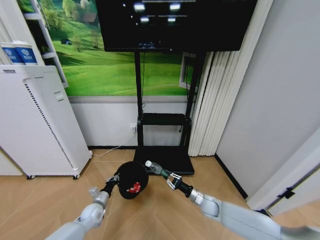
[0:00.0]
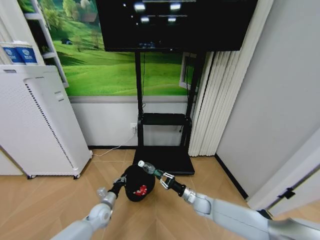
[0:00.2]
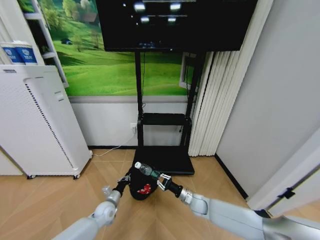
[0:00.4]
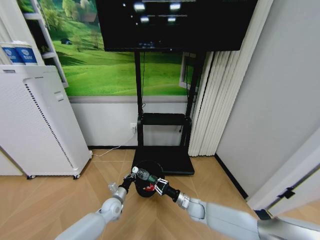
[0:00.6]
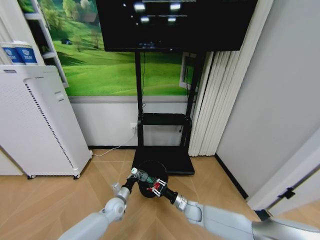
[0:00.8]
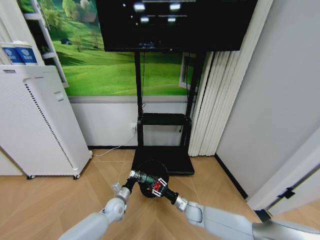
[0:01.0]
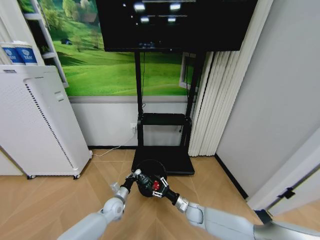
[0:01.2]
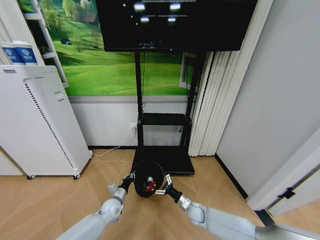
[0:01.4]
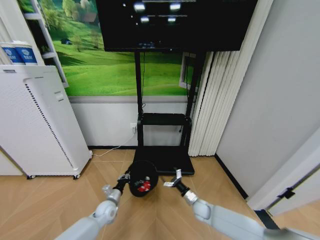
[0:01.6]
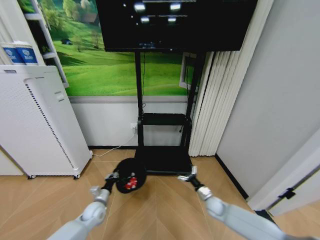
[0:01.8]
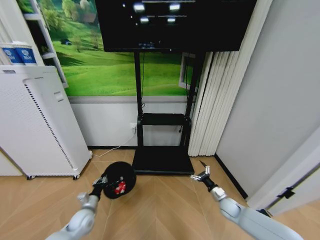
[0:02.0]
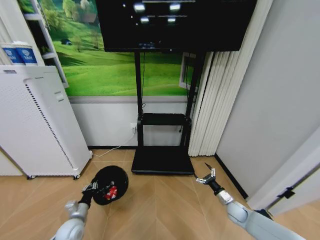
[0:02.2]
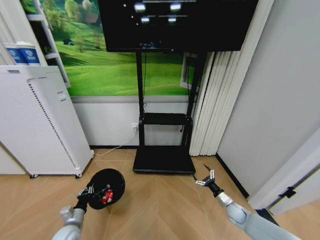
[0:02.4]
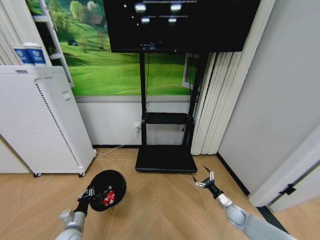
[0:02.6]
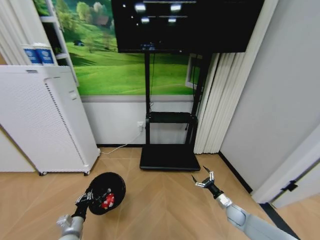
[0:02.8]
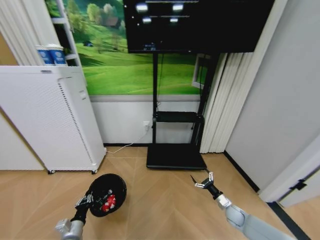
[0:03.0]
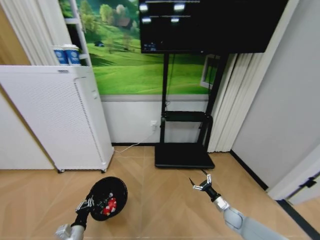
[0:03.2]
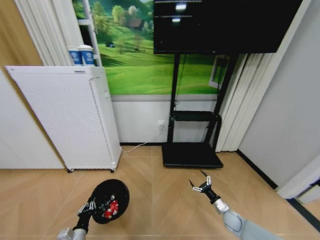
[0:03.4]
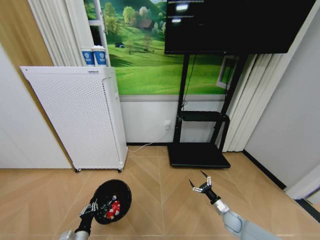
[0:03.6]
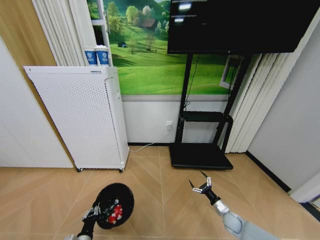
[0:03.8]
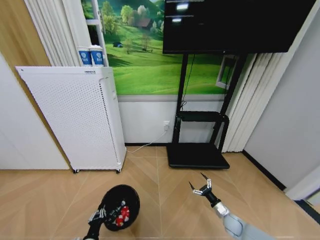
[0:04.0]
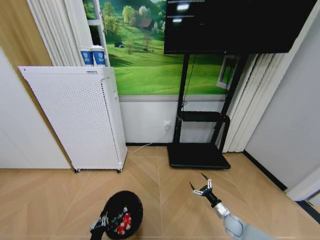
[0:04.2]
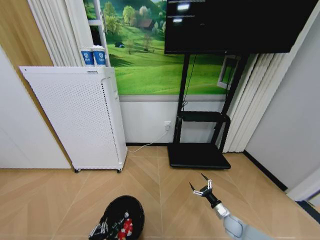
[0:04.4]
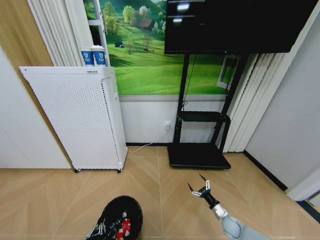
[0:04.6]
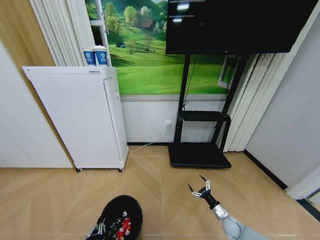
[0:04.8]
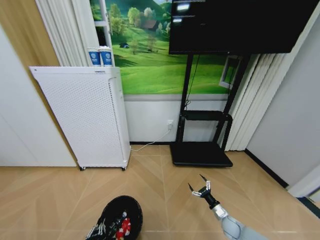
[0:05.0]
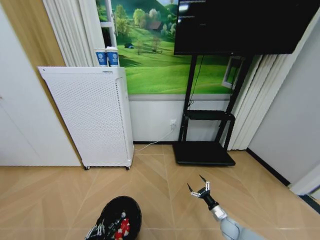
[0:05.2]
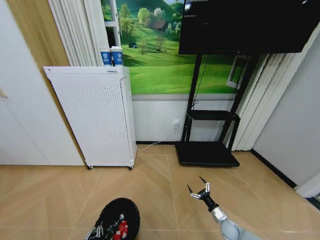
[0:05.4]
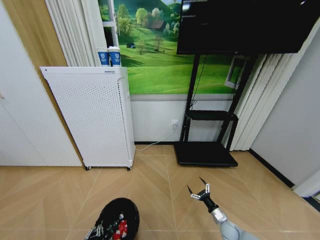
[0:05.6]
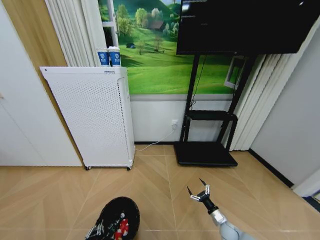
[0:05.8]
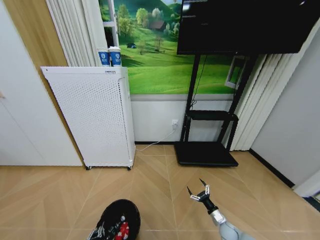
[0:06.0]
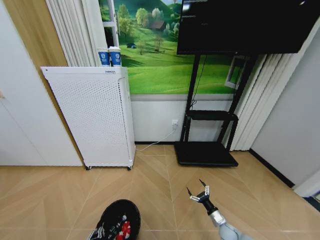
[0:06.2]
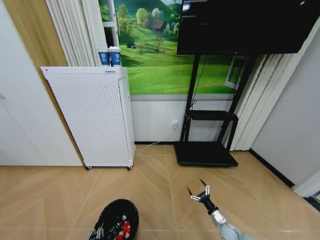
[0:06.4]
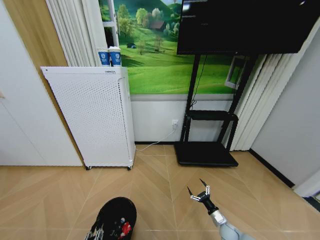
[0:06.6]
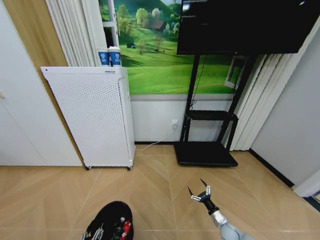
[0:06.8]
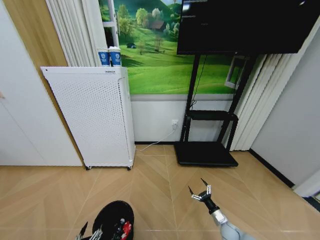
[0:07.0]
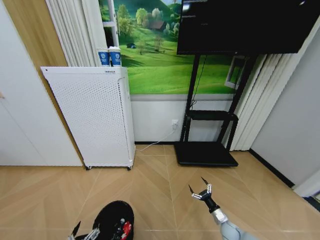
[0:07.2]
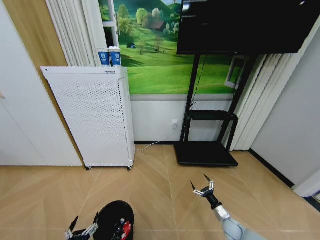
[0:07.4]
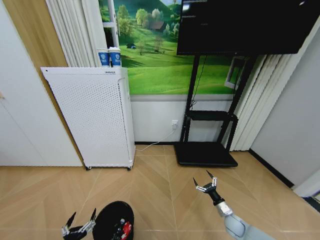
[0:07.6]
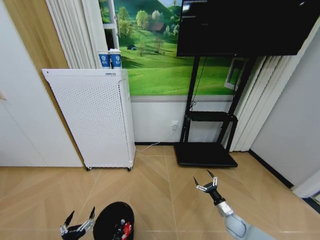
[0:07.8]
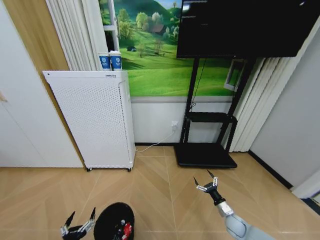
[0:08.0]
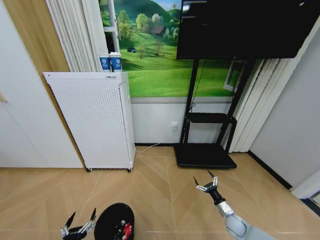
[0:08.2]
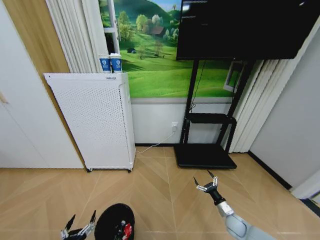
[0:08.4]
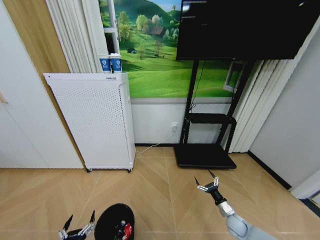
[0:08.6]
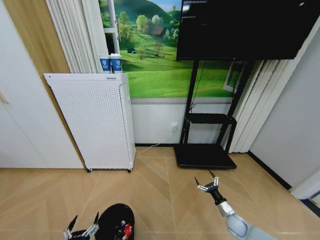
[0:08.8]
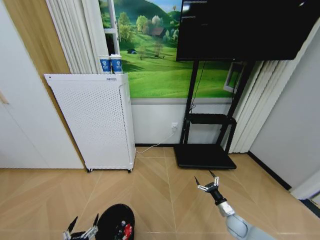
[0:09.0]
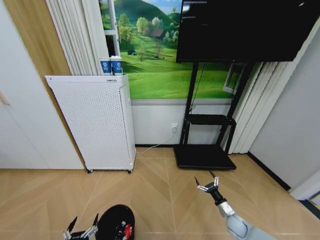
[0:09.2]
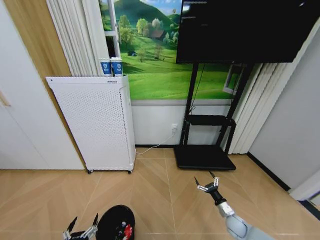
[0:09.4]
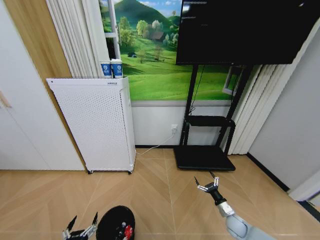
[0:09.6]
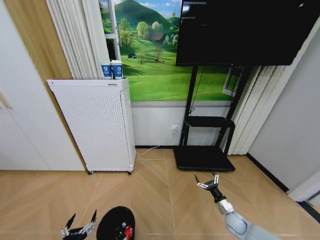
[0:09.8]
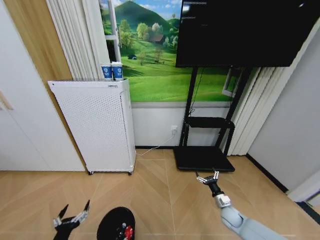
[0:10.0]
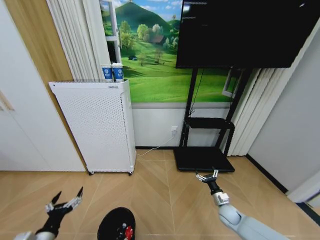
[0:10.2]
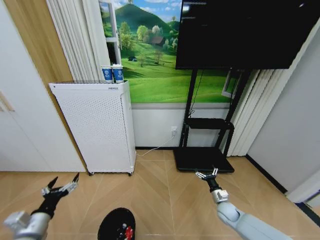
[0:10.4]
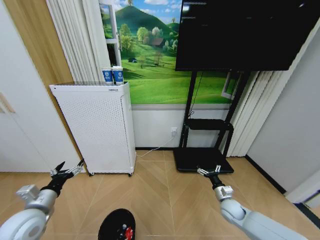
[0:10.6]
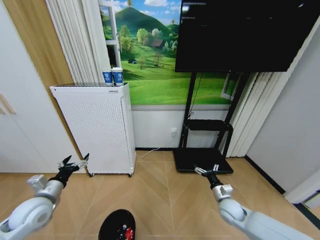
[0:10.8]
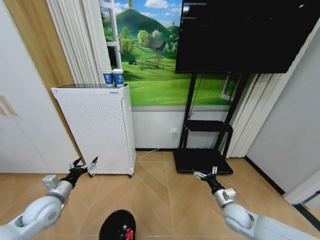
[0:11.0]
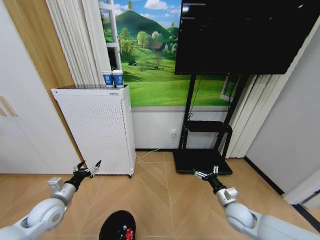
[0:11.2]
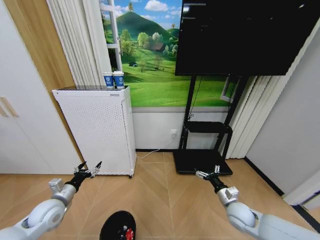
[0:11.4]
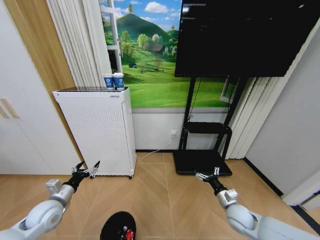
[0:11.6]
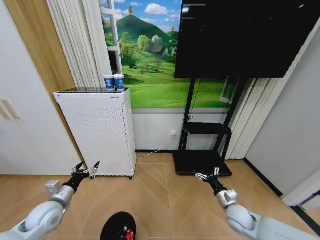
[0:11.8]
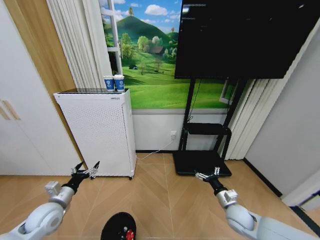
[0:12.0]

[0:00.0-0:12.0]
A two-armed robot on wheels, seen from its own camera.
Task of the whole recording: Pick up the trash bin and place the garbage on the floor into it.
0:00.0 to 0:01.6: The left gripper moves to the right, about 5 cm. The right gripper travels to the left and back again, about 10 cm each way, and opens.
0:01.6 to 0:03.0: The left gripper shifts about 20 cm backward and to the left, while the right gripper is displaced to the right by roughly 15 cm.
0:03.0 to 0:04.4: The left gripper heads backward and to the right, covering some 15 cm.
0:06.0 to 0:07.6: The left gripper shifts some 10 cm upward, and opens; the right gripper changes place by some 5 cm.
0:07.6 to 0:09.0: The grippers stay close to where they were, moving slightly.
0:09.0 to 0:10.4: The left gripper moves upward, forward and to the left, roughly 20 cm. Meanwhile the right gripper is displaced upward by some 5 cm.
0:10.4 to 0:12.0: The left gripper moves forward, some 10 cm. Meanwhile the right gripper goes some 10 cm upward and backward.

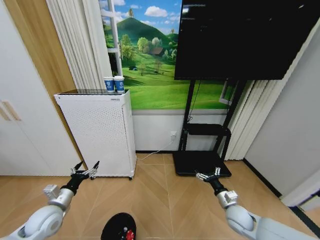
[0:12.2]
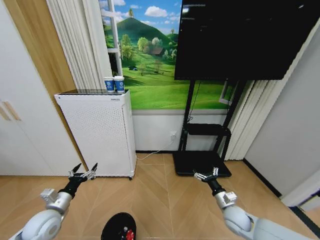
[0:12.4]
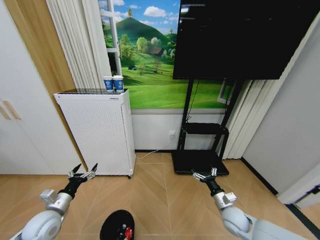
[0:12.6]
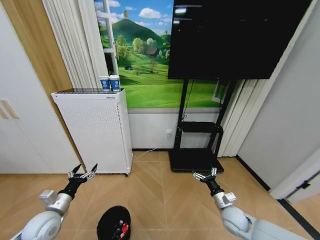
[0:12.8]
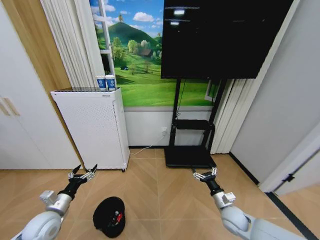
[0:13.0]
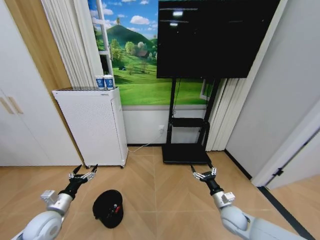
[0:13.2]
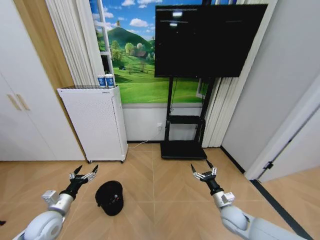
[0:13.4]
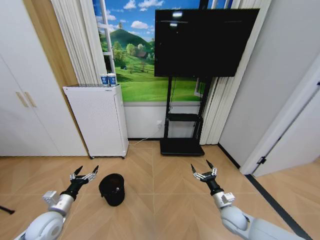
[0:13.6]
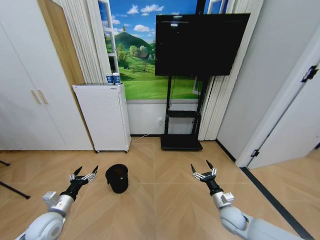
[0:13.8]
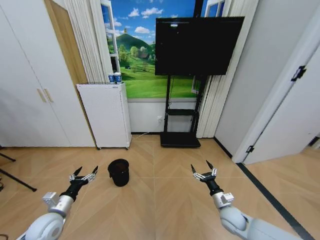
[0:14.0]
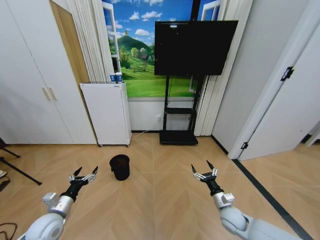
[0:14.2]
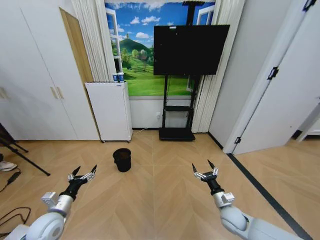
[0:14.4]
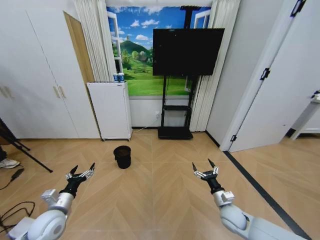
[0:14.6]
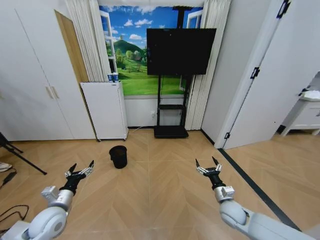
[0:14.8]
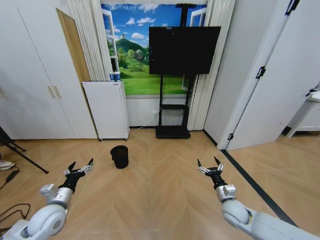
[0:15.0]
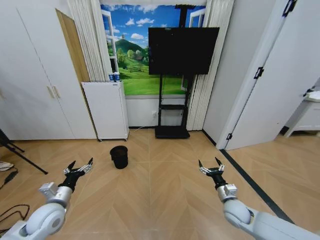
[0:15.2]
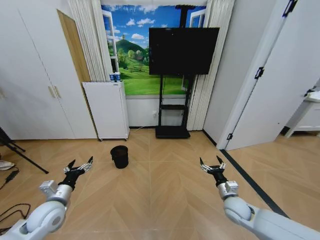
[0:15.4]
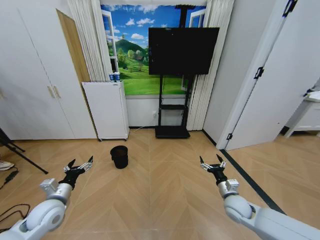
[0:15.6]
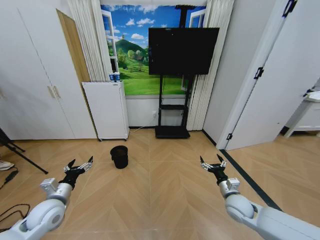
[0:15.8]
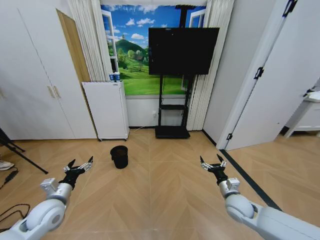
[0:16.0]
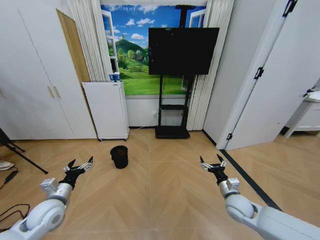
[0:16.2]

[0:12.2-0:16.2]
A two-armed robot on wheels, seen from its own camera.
Task of the whole recording: Pick up the trash bin and place the garbage on the floor into it.
0:14.8 to 0:16.2: There are only small adjustments of the grippers.
